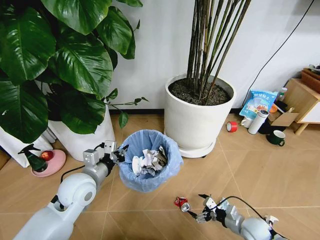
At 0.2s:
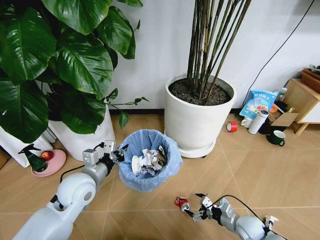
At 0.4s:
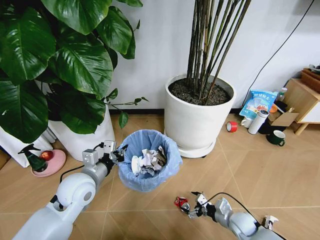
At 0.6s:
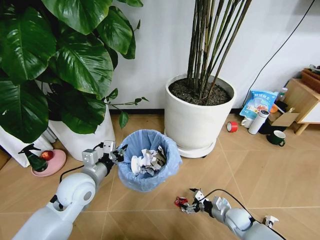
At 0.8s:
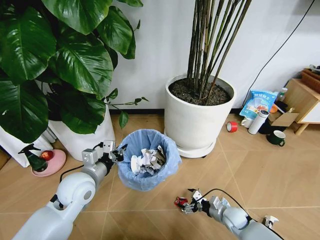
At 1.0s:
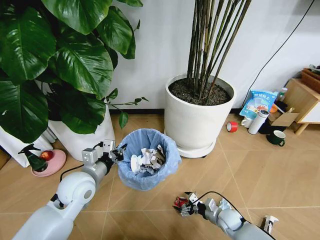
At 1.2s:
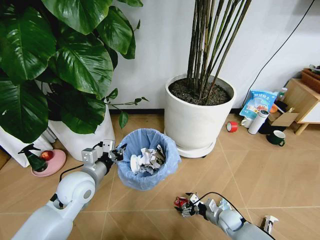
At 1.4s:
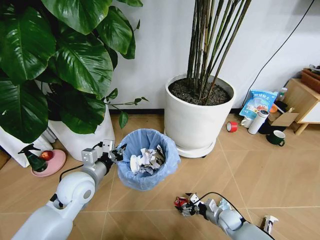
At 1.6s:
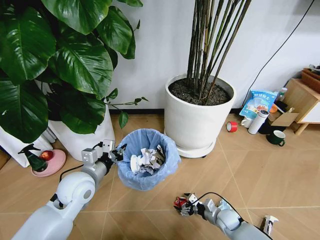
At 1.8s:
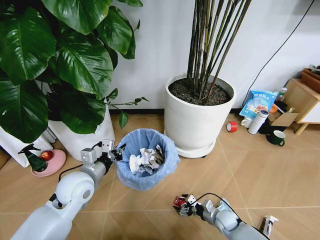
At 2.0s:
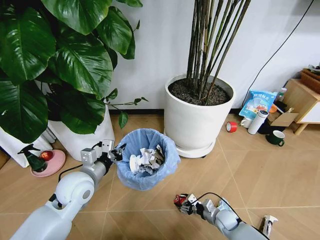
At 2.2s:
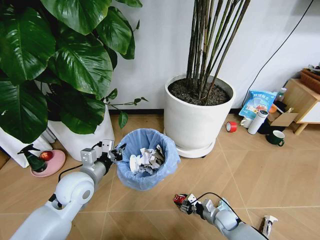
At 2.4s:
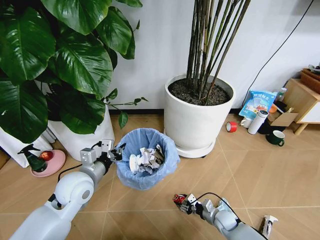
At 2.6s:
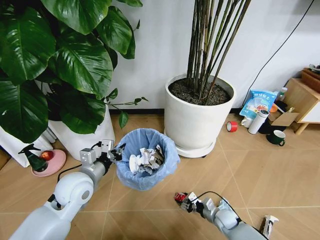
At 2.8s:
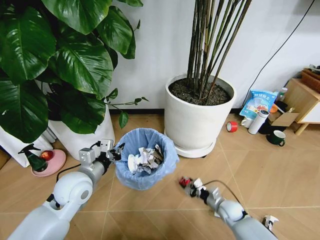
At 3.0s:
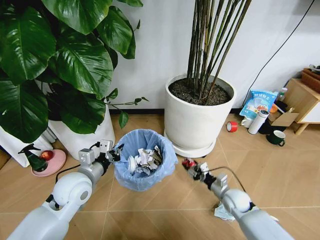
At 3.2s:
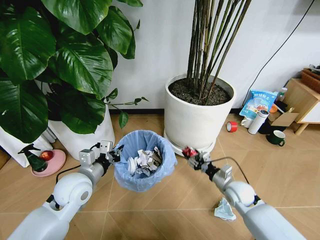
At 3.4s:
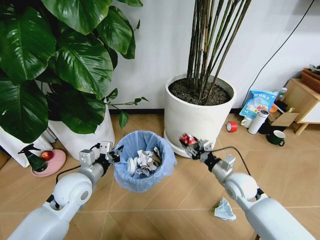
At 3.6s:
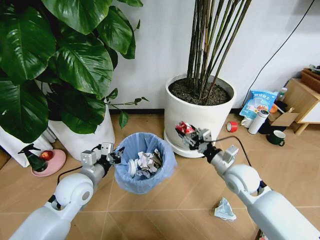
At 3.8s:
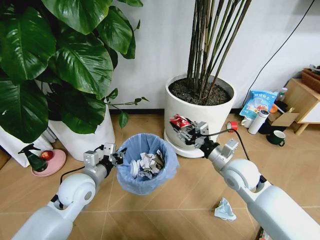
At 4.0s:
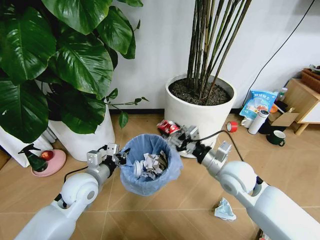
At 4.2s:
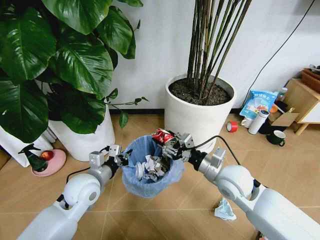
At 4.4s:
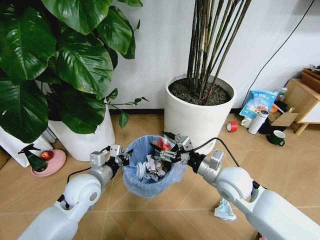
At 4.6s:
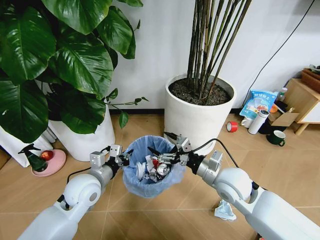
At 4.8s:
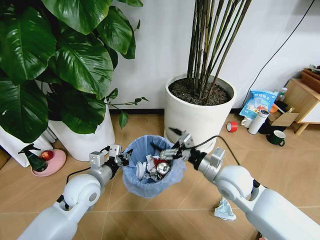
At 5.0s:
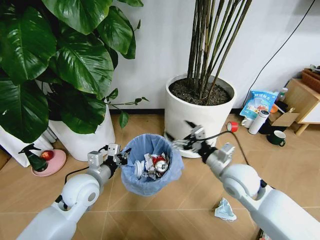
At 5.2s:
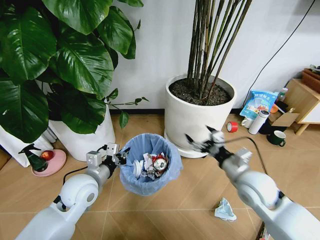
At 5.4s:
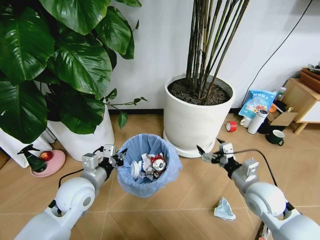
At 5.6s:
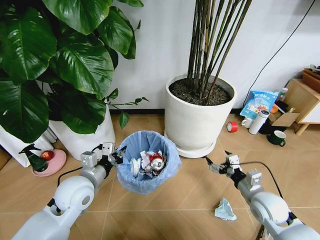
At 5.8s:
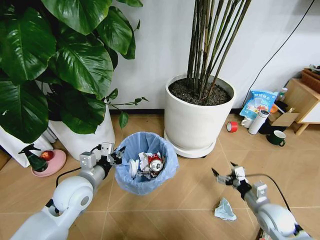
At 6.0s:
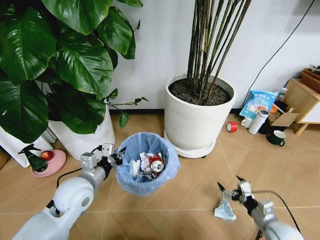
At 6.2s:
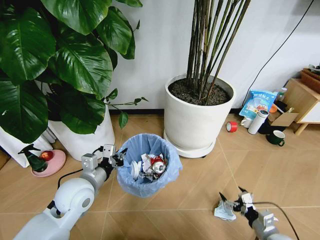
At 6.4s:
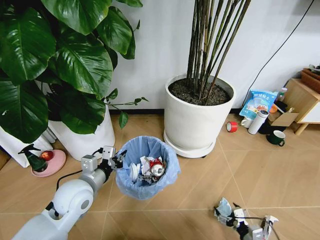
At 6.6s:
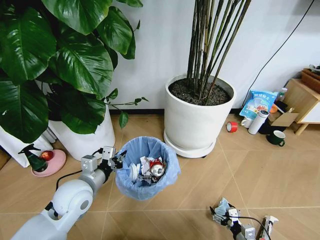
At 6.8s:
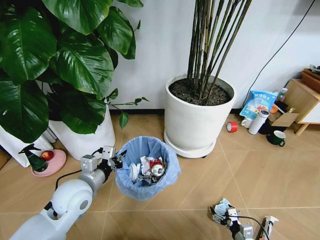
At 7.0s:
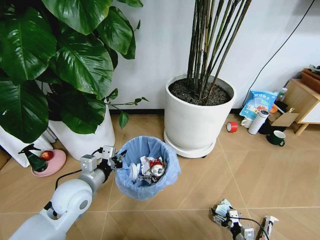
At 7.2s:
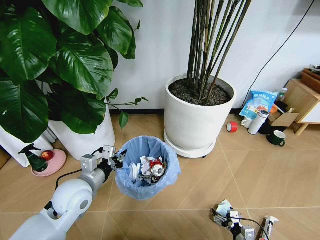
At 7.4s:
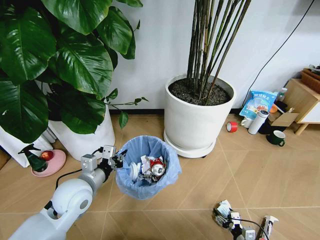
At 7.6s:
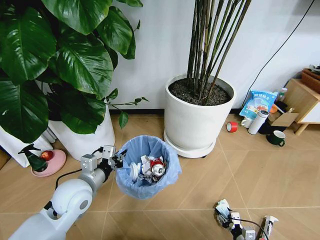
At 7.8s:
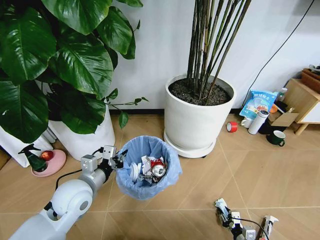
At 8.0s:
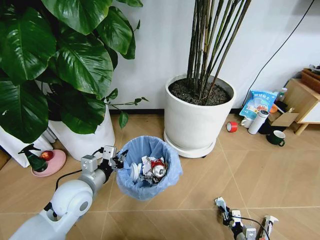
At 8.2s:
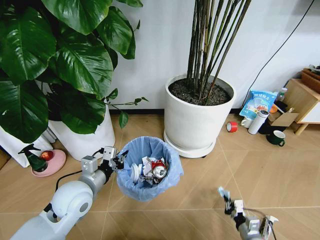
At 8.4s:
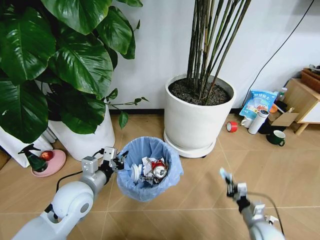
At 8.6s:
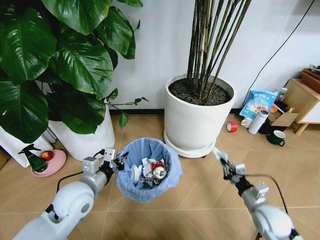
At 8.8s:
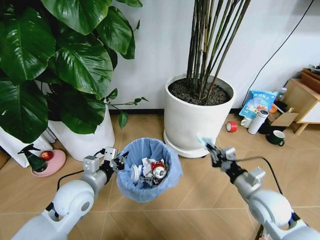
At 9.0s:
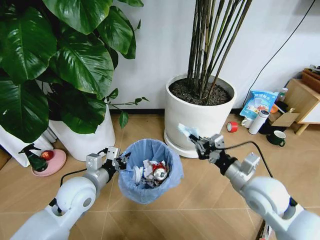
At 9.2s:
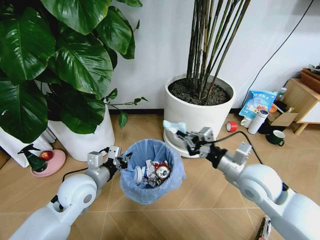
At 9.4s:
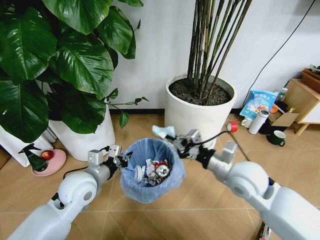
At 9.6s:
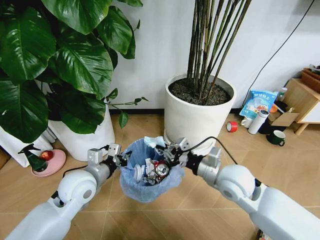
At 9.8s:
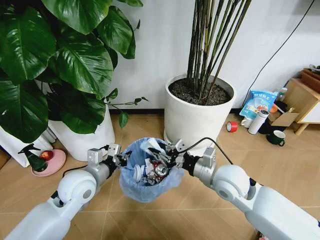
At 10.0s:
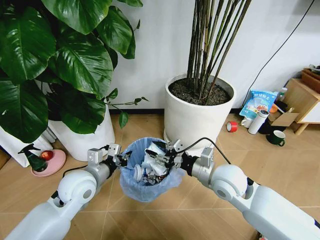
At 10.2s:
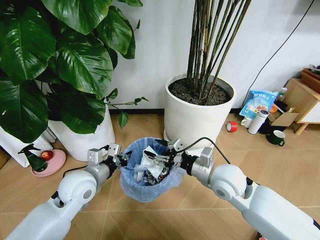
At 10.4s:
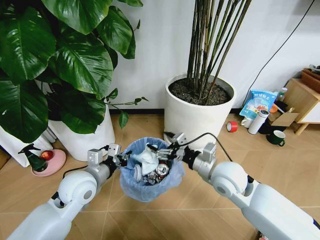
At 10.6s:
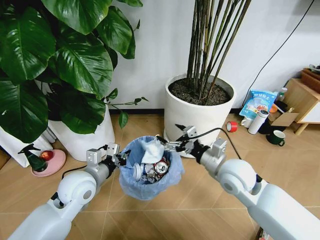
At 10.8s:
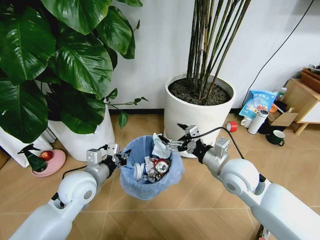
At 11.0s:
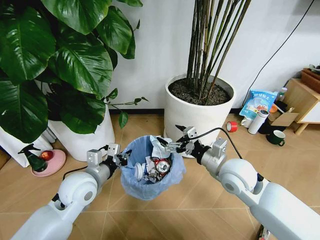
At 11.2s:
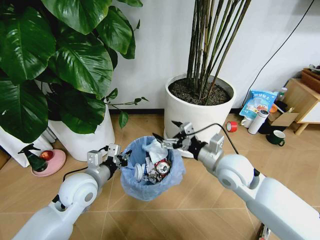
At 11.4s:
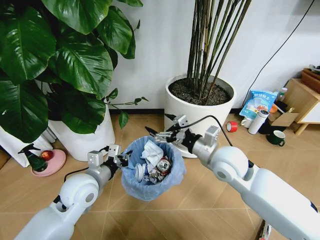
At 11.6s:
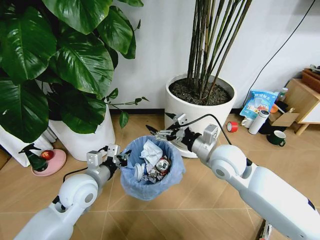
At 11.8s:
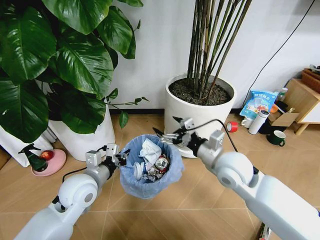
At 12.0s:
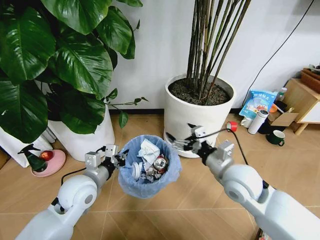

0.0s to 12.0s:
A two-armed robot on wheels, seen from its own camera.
Task of the whole recording: Pick up the trash bin and place the garbage on the floor into it.
0.0s to 1.6s: The right gripper goes approximately 10 cm downward, to the left and forward.
1.6s to 3.0s: The right gripper moves upward, approximately 10 cm, and closes up.
3.0s to 4.4s: The right gripper moves upward and to the left, roughly 25 cm.
4.4s to 6.0s: The right gripper shifts approximately 30 cm to the right, downward and backward.
6.0s to 7.6s: The right gripper goes roughly 15 cm downward.
7.6s to 9.0s: The right gripper shifts roughly 35 cm upward, and closes up.
9.0s to 10.4s: The right gripper goes roughly 10 cm to the left and forward, and opens up.
10.4s to 12.0s: The grippers stay close to where they were, moving slightly.

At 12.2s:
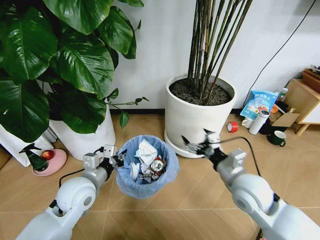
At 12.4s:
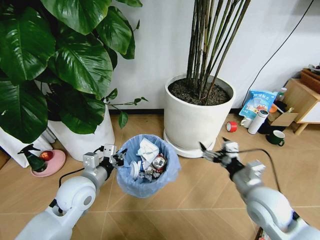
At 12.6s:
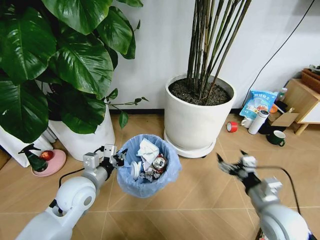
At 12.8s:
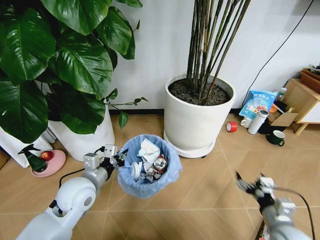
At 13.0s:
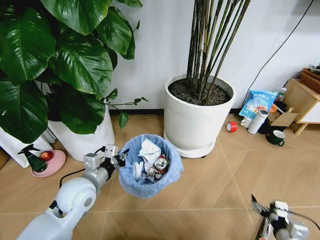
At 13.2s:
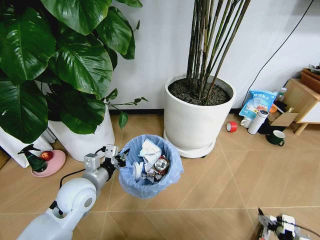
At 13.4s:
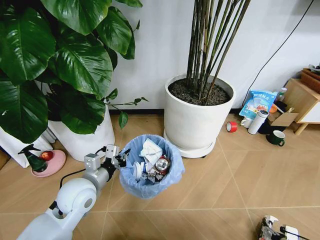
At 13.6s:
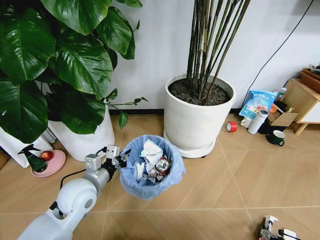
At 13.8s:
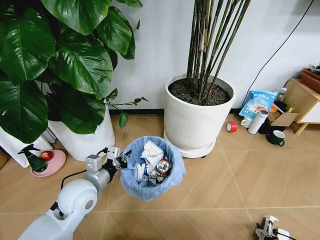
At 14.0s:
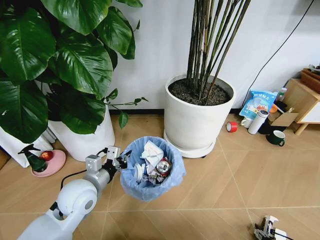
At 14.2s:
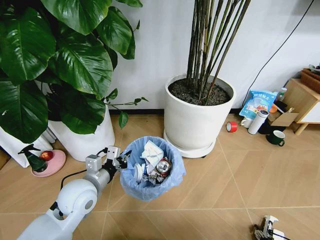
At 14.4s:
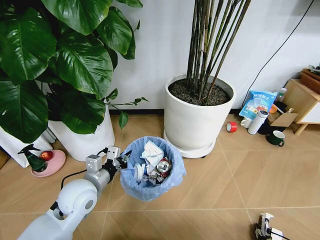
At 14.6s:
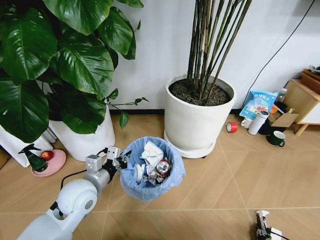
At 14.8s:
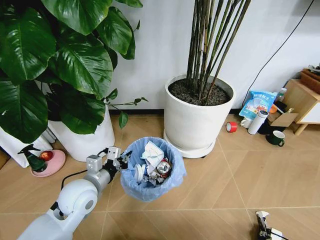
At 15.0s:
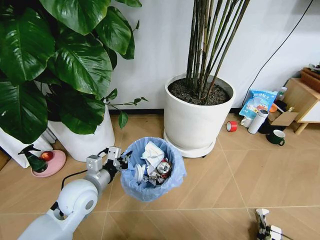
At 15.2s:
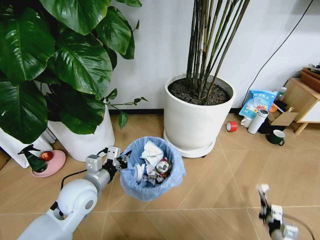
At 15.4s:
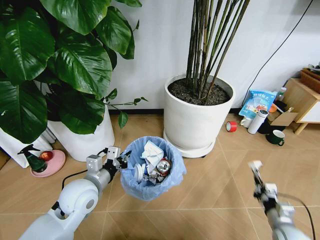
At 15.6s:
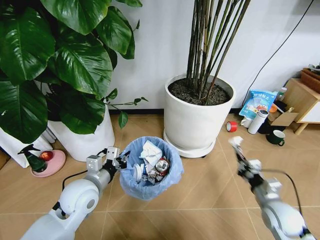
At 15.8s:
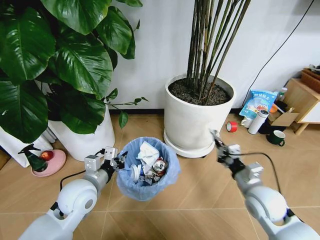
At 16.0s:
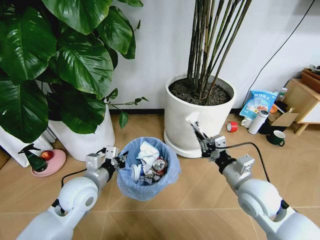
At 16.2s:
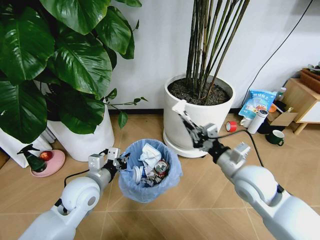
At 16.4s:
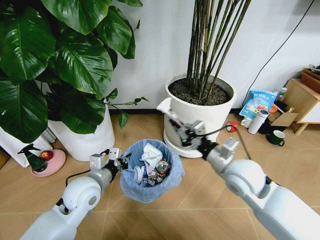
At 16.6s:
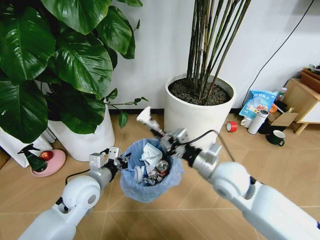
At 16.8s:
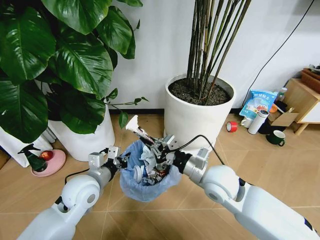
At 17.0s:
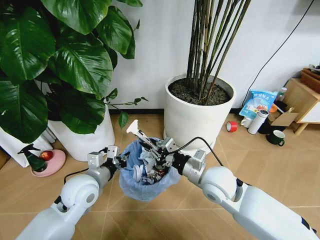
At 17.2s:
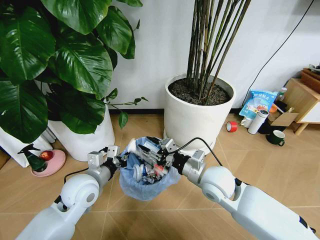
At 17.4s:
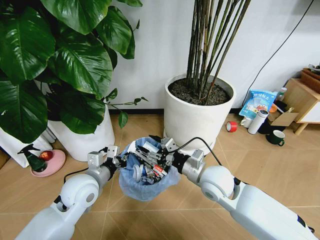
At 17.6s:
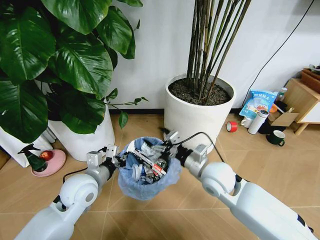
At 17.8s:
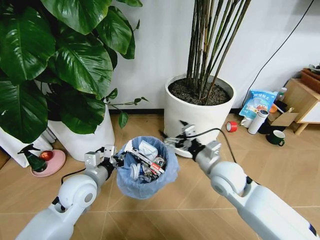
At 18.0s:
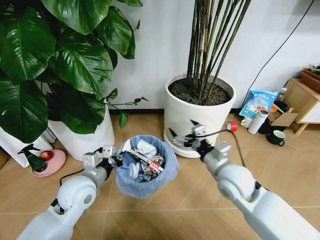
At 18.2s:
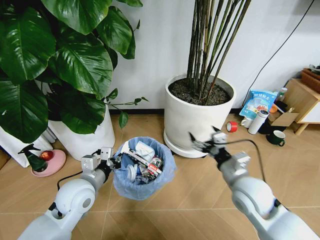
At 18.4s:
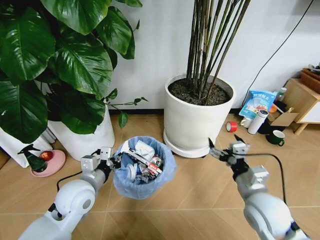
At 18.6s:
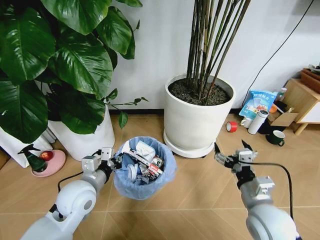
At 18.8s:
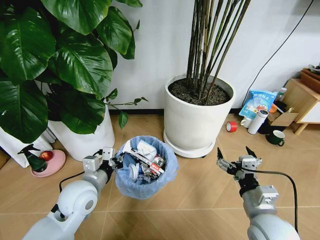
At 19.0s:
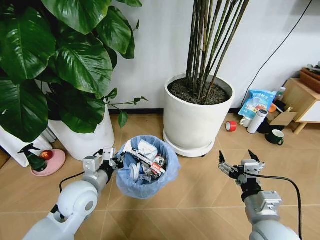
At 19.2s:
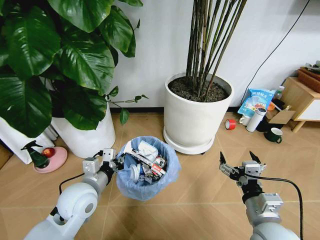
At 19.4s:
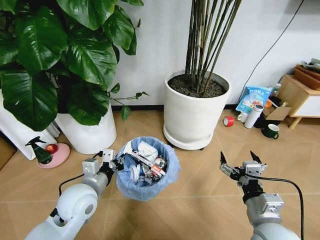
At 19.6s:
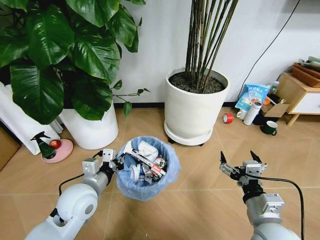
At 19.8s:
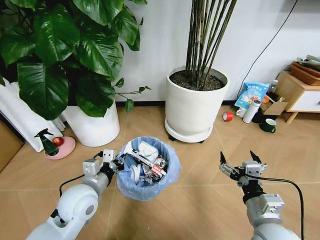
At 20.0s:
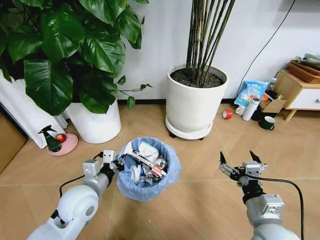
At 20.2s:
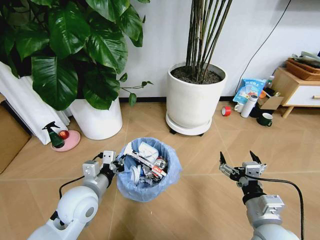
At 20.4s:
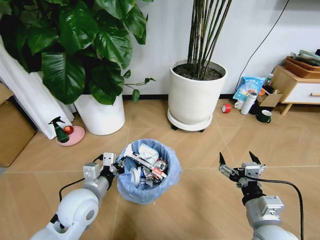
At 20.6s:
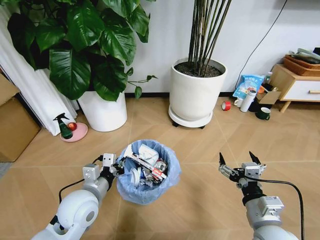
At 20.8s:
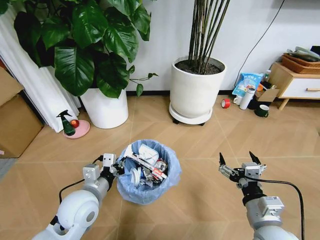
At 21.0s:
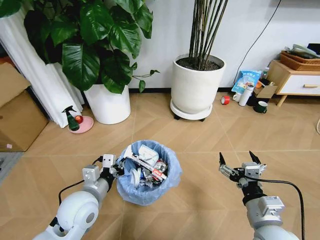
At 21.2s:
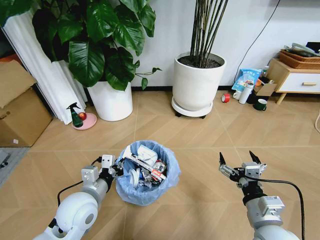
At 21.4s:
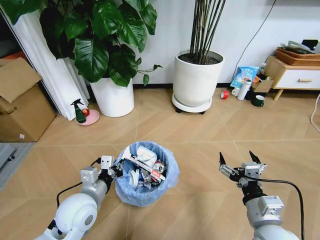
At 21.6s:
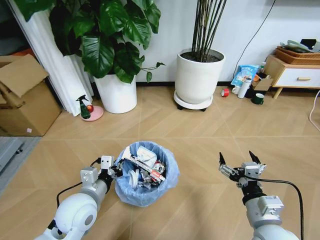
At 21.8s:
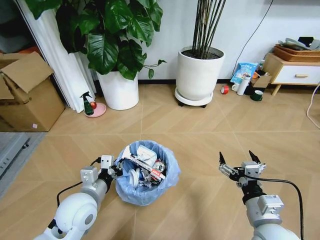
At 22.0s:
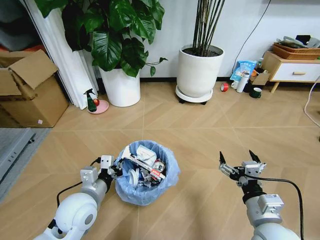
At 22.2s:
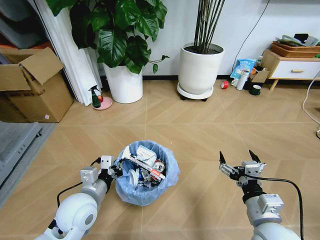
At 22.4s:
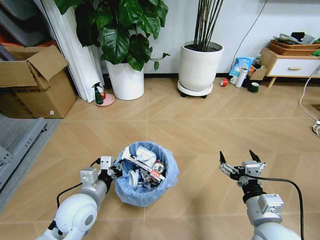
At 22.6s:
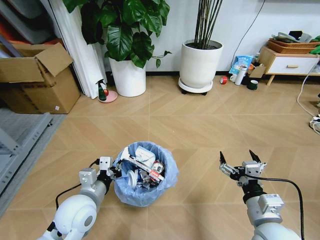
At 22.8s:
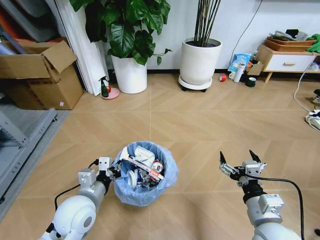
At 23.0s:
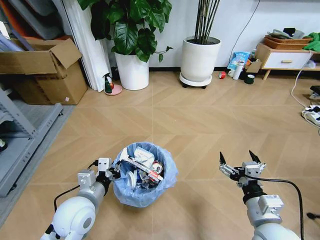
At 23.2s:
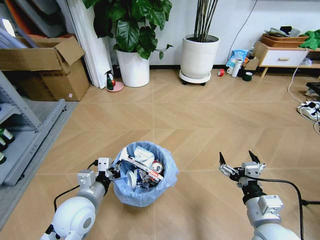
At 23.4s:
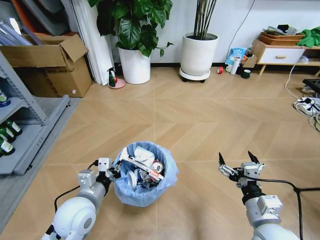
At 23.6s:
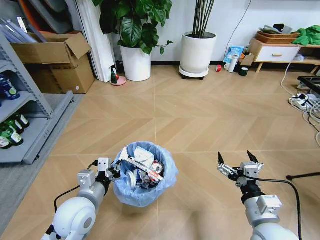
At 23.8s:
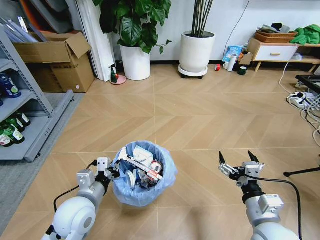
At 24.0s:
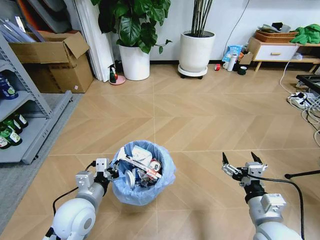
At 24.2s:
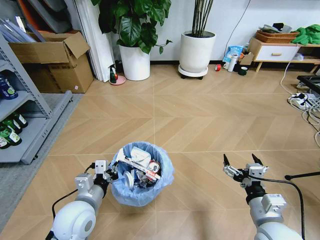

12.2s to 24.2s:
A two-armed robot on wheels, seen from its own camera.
Task of the whole recording: Pick up the trash bin and place the garbage on the floor into it.
12.2s to 13.8s: The right gripper shifts roughly 40 cm downward, to the right and backward.
13.8s to 15.2s: The right gripper ends up about 5 cm from where it was, and closes.
15.2s to 16.6s: The right gripper goes roughly 40 cm upward, to the left and forward.
16.6s to 18.2s: The right gripper moves approximately 5 cm, and opens up.
18.2s to 19.8s: The right gripper is displaced backward by some 10 cm.
